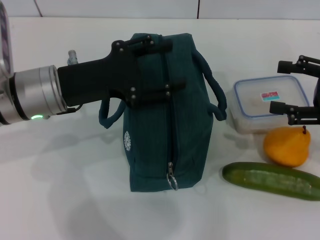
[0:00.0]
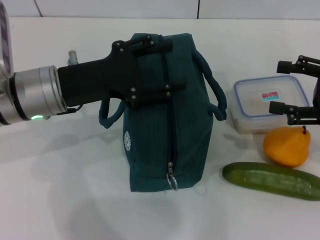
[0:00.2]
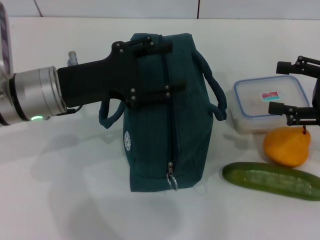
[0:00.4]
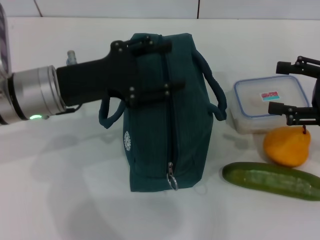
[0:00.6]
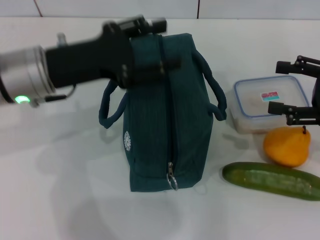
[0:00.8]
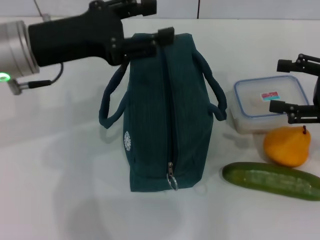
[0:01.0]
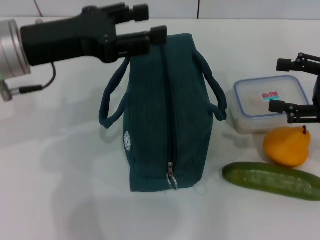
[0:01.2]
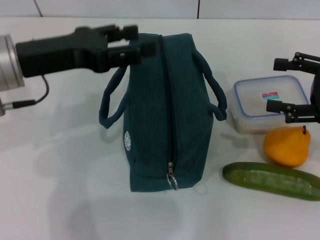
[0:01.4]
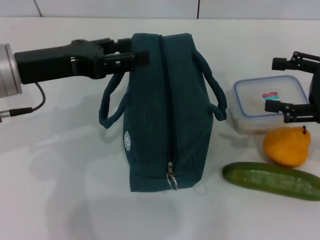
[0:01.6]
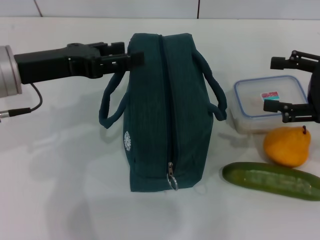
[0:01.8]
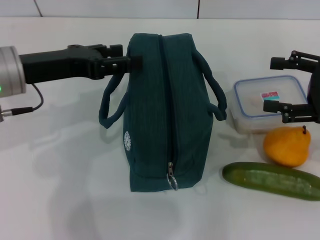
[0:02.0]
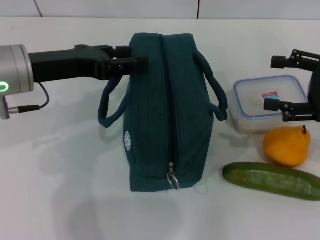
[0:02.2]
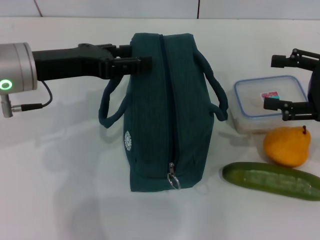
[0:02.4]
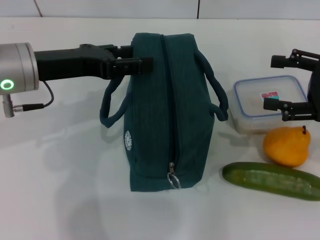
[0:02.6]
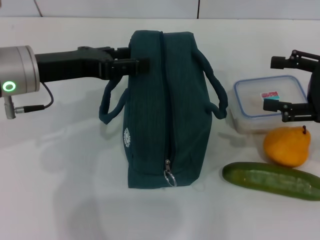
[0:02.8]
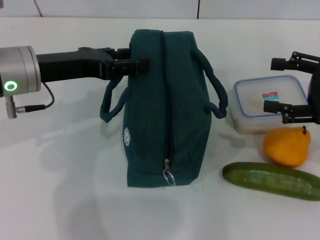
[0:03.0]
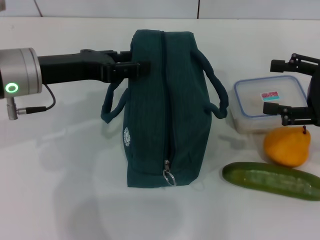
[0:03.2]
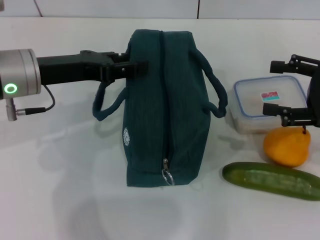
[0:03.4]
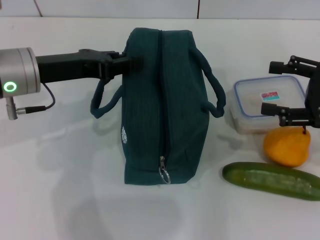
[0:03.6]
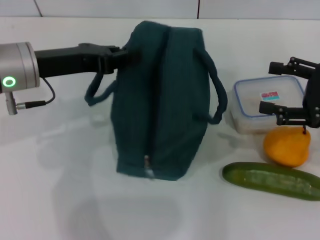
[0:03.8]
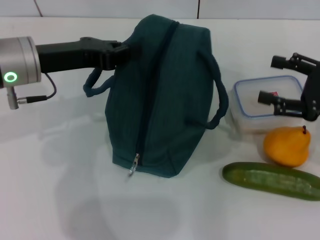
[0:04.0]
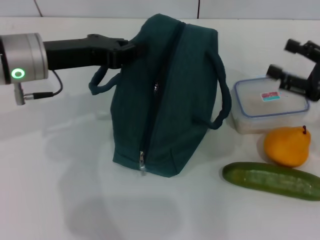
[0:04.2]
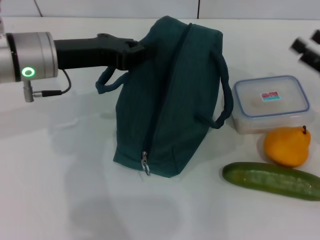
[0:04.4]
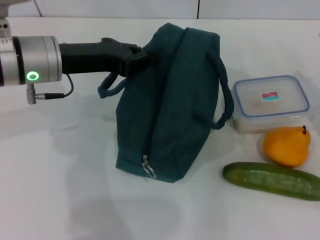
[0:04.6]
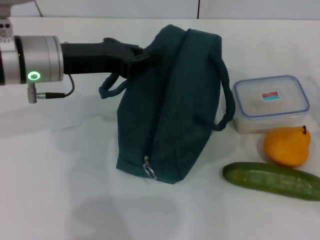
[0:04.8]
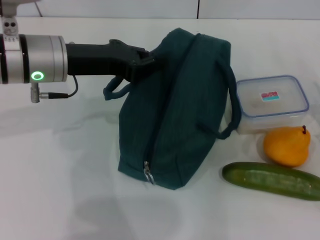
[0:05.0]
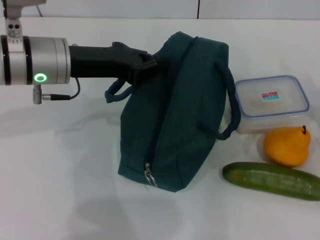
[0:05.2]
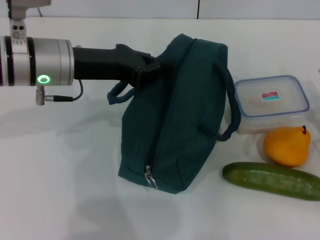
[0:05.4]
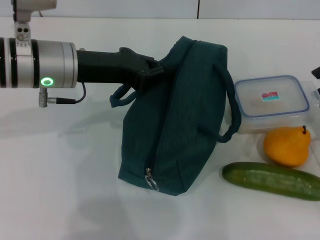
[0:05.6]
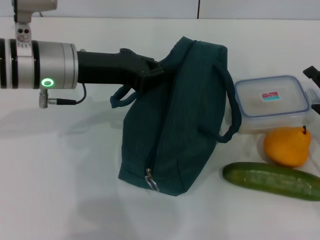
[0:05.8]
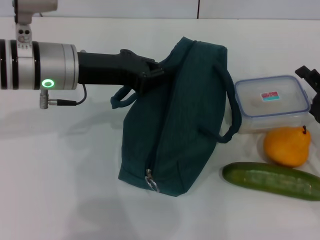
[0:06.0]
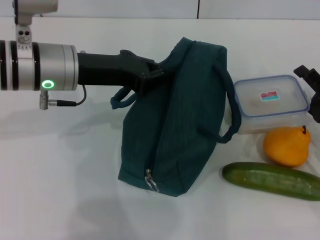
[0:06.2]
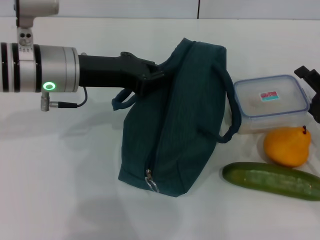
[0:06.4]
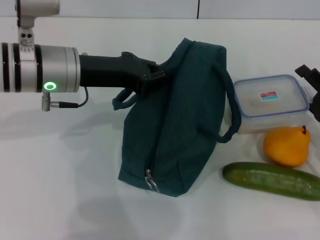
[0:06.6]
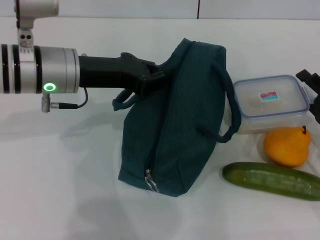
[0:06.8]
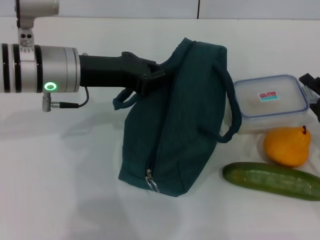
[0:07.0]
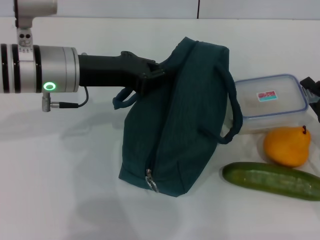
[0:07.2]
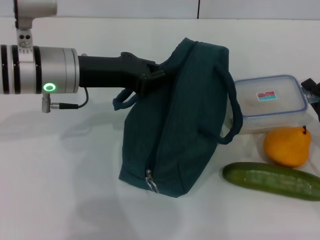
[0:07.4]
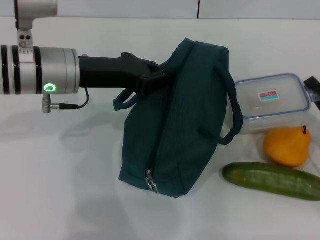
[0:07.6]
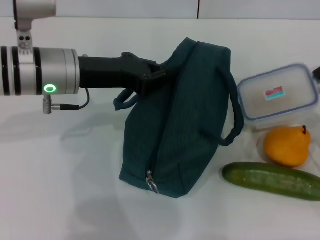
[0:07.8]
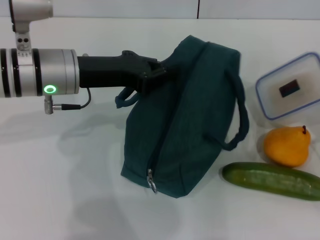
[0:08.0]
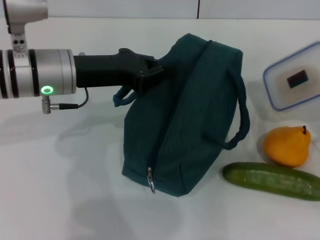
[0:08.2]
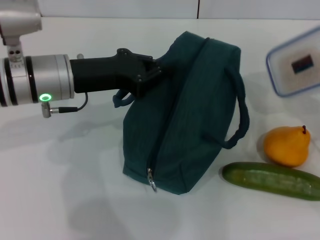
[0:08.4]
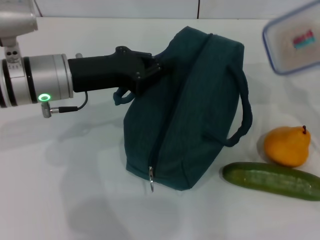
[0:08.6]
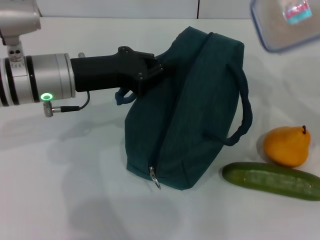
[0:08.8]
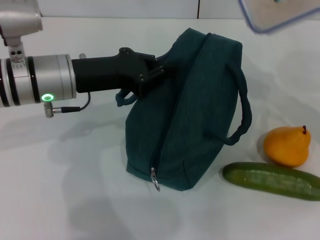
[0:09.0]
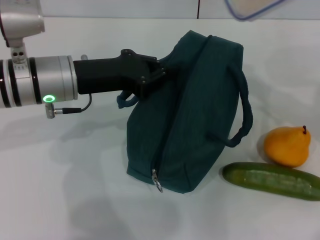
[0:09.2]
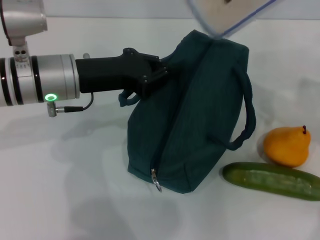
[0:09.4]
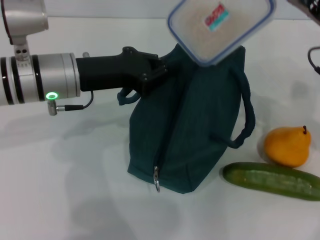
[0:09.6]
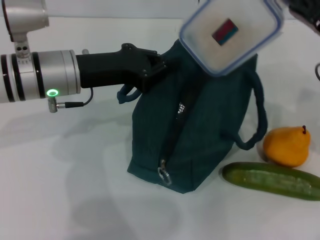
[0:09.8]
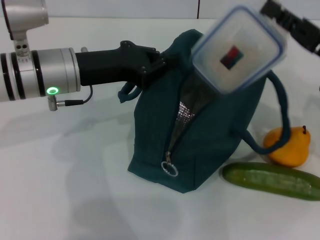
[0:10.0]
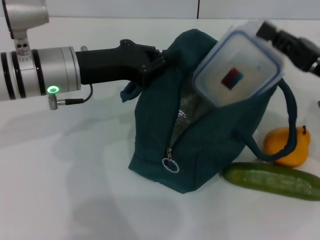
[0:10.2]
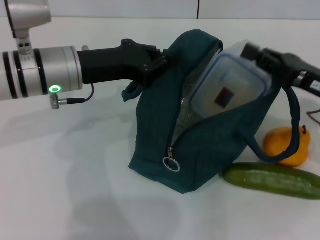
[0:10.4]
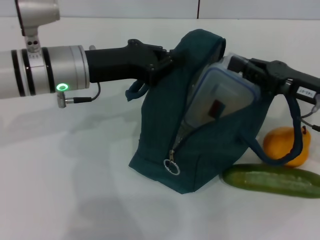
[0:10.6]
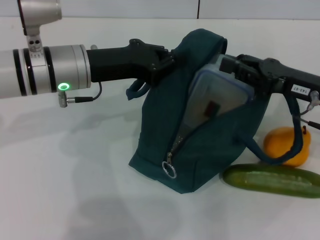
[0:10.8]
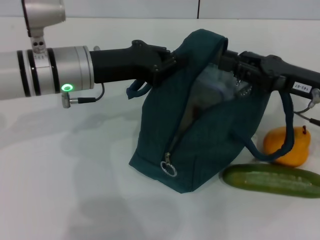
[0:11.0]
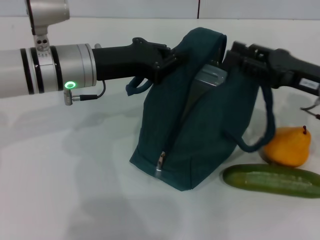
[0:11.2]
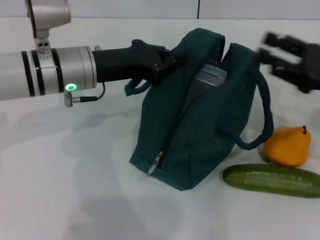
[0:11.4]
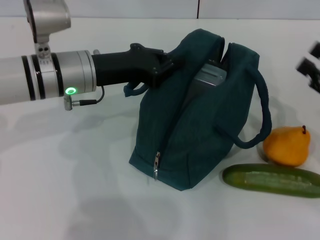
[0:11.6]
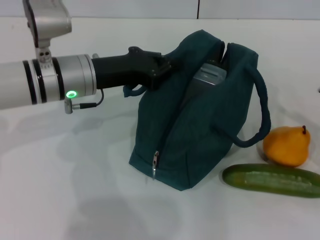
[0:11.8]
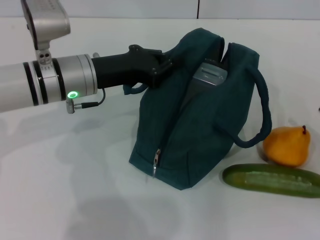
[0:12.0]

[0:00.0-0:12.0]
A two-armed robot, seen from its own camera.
Step, 0:00.0 to 0:03.8: Hold the lunch bag with your left hand.
Step, 0:04.0 to 0:07.4: Pick up the lunch box with your right hand.
Step, 0:07.6 to 0:11.2: Place the lunch box into the lunch bag with your right hand.
0:00.0 to 0:01.6: The left gripper changes place by roughly 5 cm.
0:01.6 to 0:03.0: There are only small adjustments of the grippers.
0:03.0 to 0:04.4: The right gripper travels downward by about 5 cm. Meanwhile the left gripper closes up.
0:04.4 to 0:06.0: The right gripper goes some 5 cm downward.
0:06.0 to 0:07.6: The right gripper closes up.
0:07.6 to 0:09.0: The right gripper travels upward by approximately 15 cm.
0:09.0 to 0:10.4: The right gripper changes place by approximately 5 cm.
0:10.4 to 0:12.0: The right gripper goes roughly 15 cm backward, to the right and downward, and opens up.

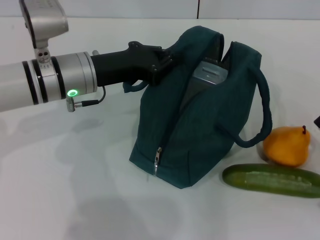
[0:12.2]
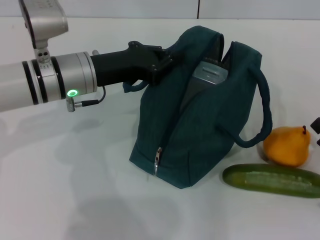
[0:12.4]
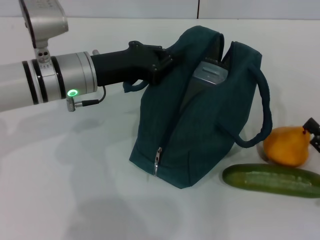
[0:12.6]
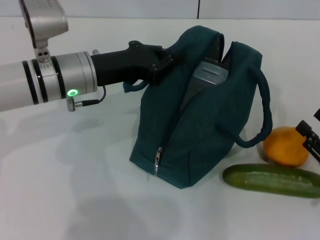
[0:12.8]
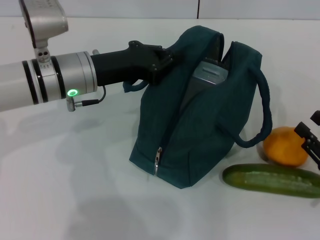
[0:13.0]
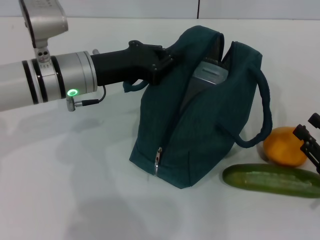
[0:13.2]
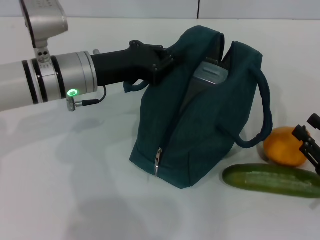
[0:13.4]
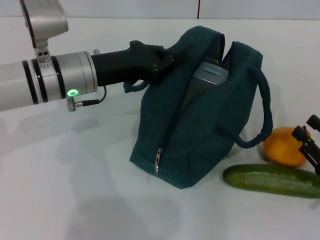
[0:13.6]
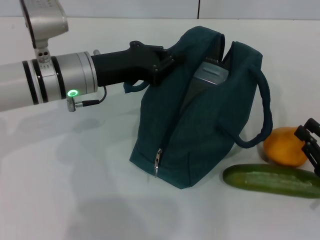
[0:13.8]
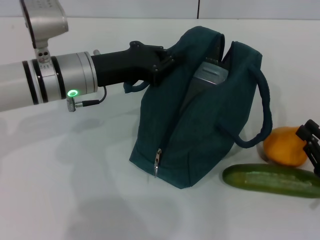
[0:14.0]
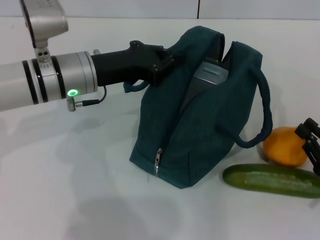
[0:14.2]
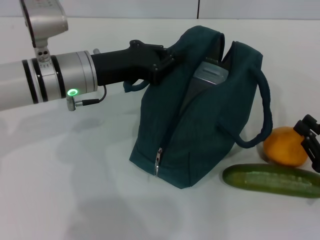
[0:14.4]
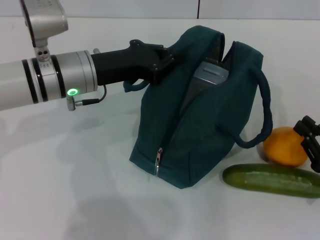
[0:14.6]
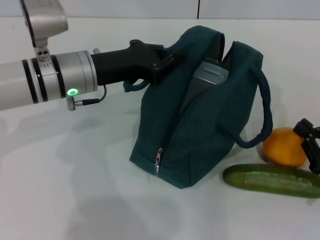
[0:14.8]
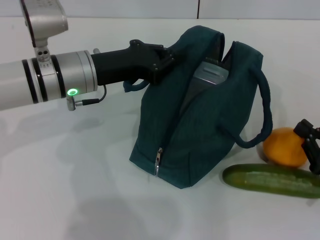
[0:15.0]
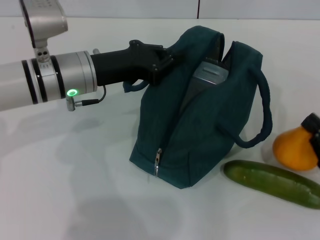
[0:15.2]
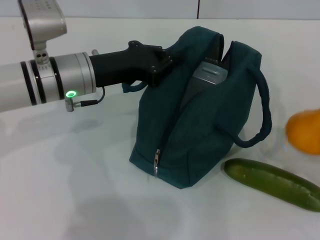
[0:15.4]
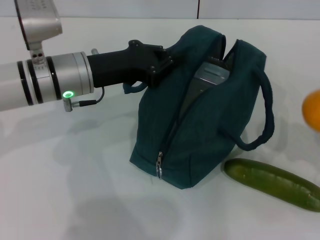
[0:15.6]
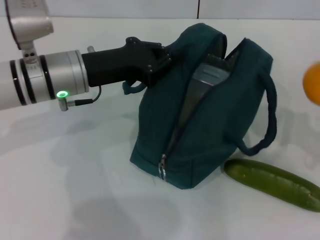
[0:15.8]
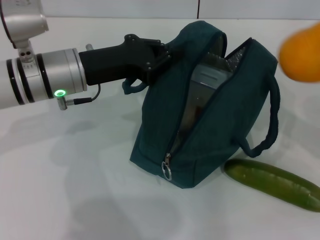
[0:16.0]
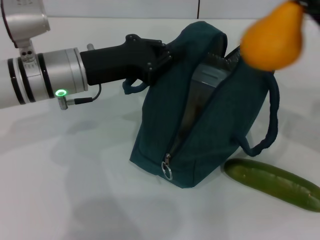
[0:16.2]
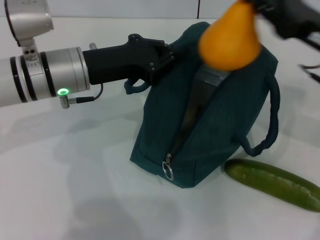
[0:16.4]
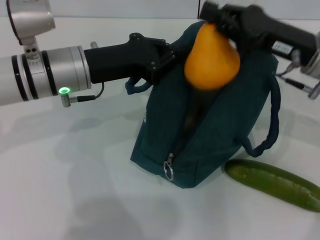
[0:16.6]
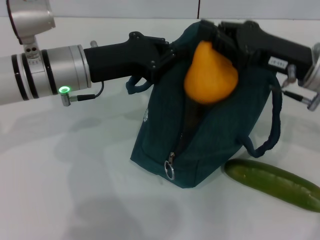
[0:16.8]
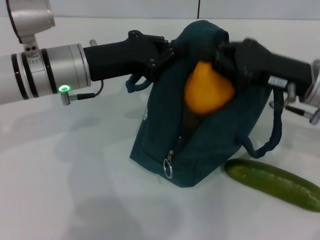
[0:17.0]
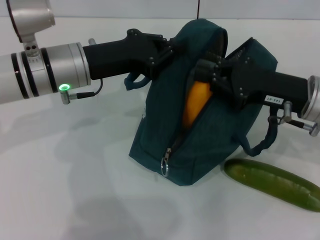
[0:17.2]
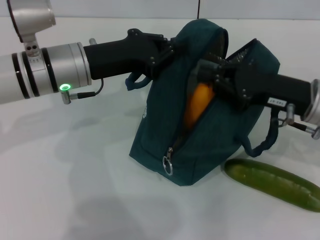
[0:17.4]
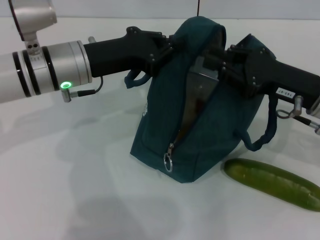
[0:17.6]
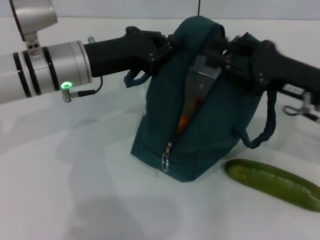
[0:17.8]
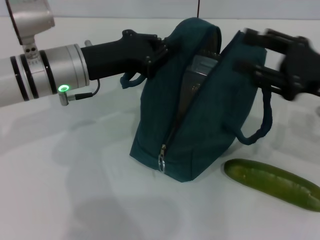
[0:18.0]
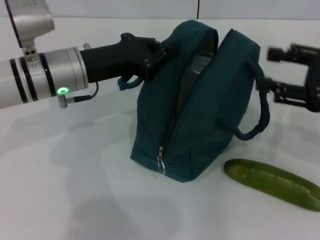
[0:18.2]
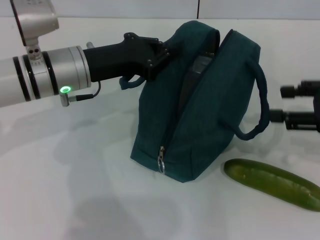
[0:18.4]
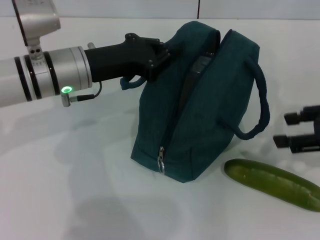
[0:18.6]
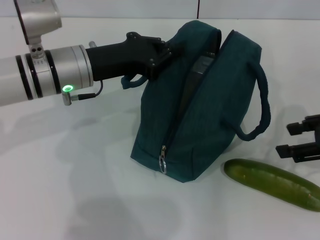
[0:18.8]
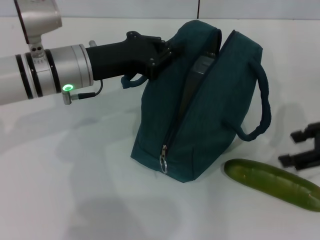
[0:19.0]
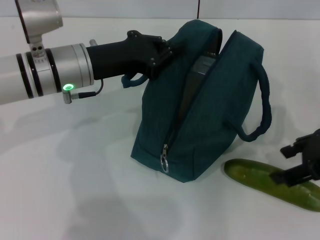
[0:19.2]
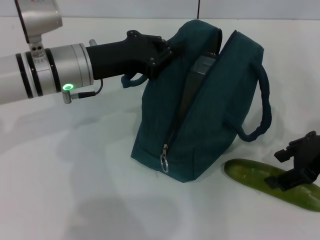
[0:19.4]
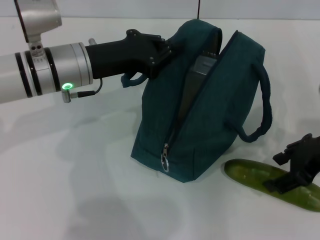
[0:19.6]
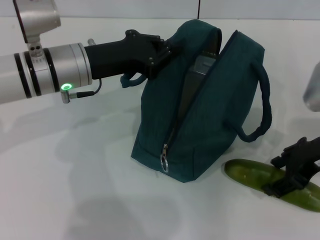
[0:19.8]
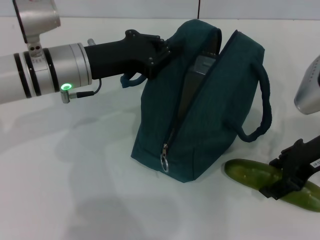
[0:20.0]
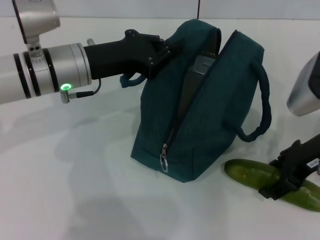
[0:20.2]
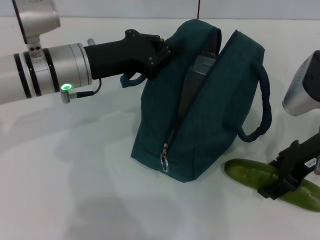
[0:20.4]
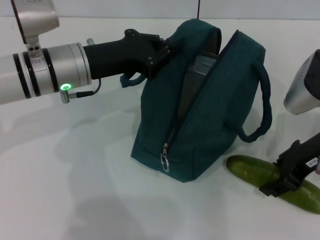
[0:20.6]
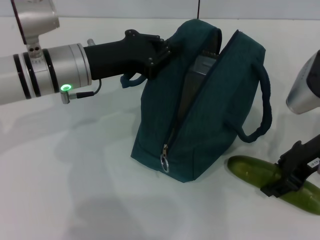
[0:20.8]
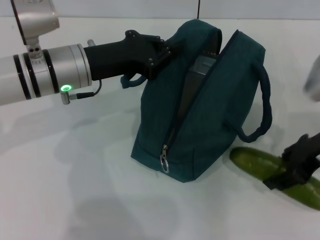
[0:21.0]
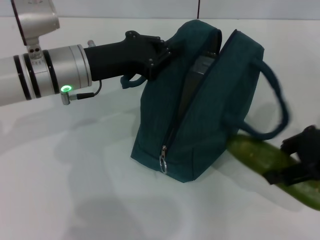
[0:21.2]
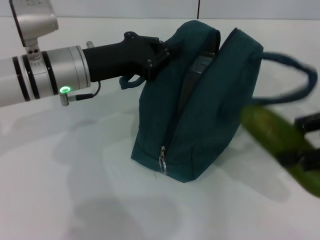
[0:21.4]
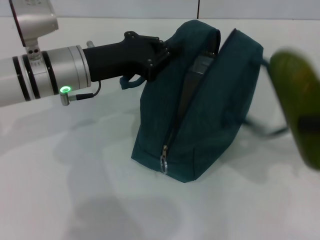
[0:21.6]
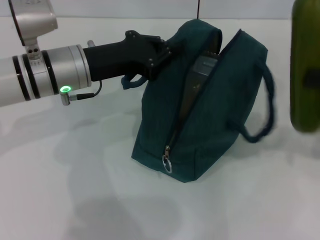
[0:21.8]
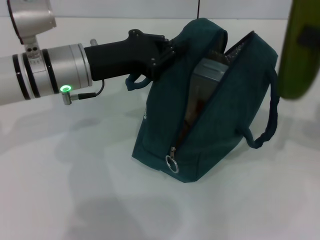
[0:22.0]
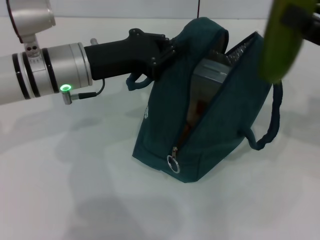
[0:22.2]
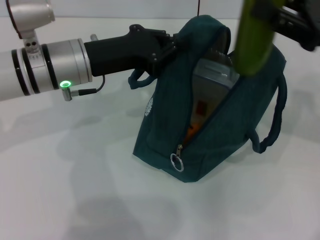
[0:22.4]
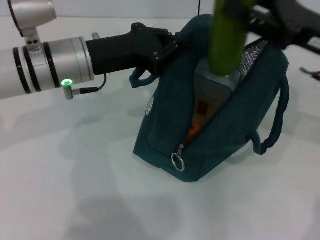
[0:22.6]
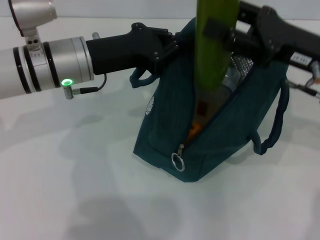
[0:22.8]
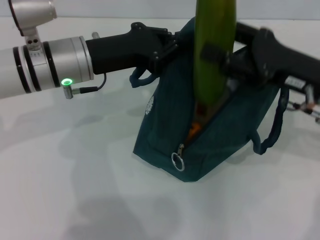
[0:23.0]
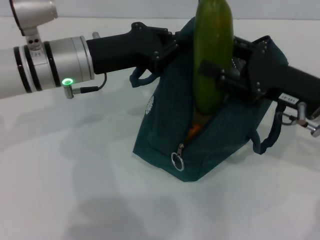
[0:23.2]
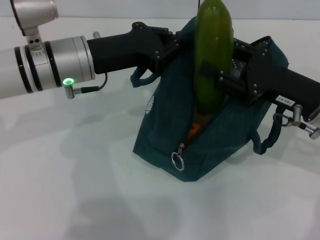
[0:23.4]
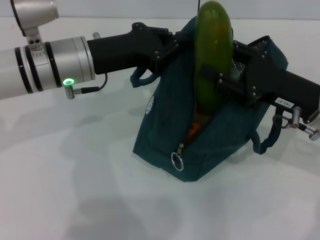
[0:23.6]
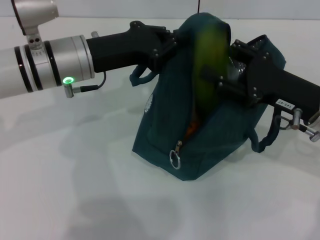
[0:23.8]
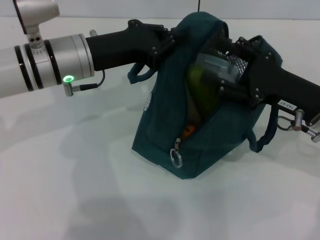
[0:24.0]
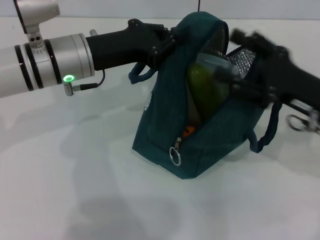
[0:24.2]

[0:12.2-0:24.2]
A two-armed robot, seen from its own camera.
Step, 0:14.8 to 0:17.6: Place the pear into the lunch bag with your right hand.
Step, 0:17.8 to 0:20.6: Pick up the cucumber with your right hand.
0:12.2 to 0:13.8: The grippers move only a little.
0:13.8 to 0:15.2: The right gripper closes its fingers.
0:15.2 to 0:16.6: The right gripper is displaced forward, upward and to the left by about 25 cm.
0:16.6 to 0:18.2: The right gripper heads to the right and backward, covering approximately 10 cm, and opens.
0:18.2 to 0:19.8: The right gripper is displaced to the left by about 5 cm.
0:19.8 to 0:21.2: There are only small adjustments of the grippers.
0:21.2 to 0:22.6: The right gripper goes some 5 cm forward, and travels to the right and back again, some 5 cm each way.
0:22.6 to 0:24.2: The right gripper heads downward, covering approximately 5 cm.
